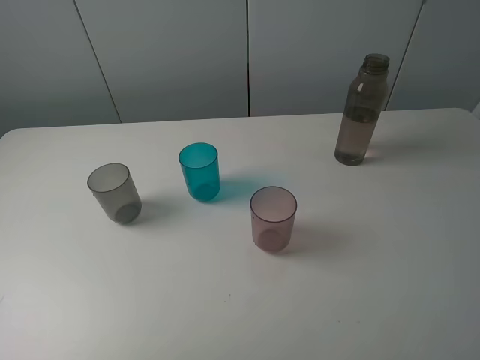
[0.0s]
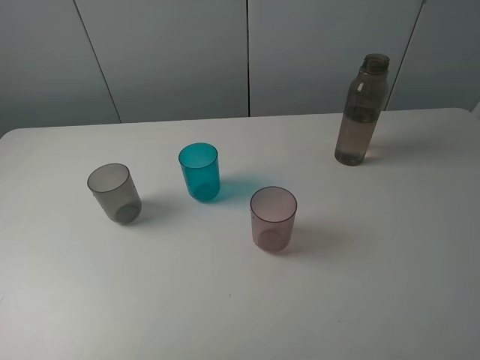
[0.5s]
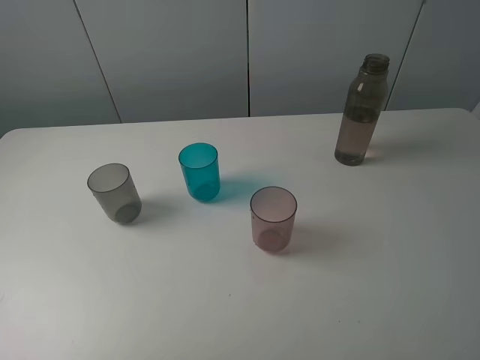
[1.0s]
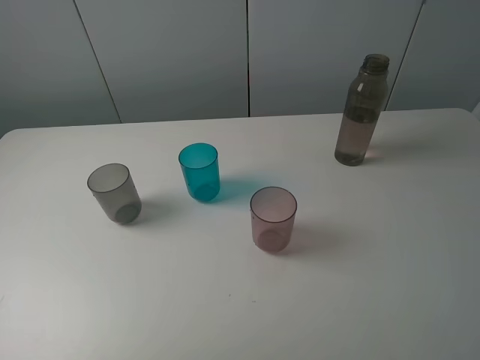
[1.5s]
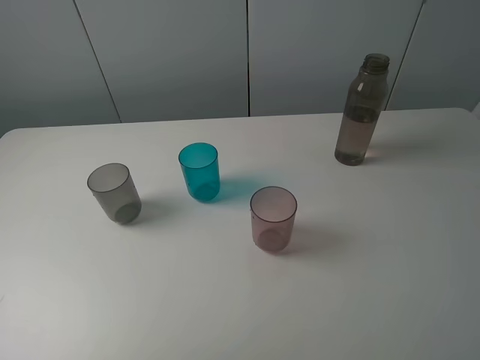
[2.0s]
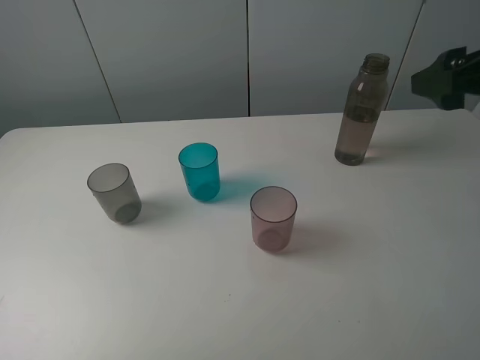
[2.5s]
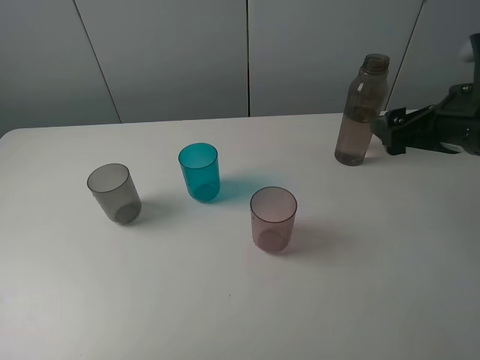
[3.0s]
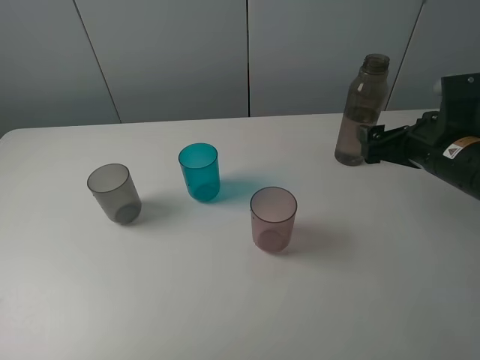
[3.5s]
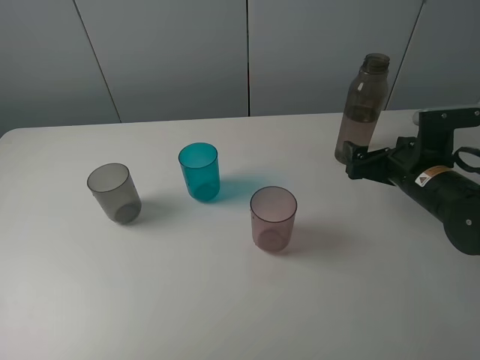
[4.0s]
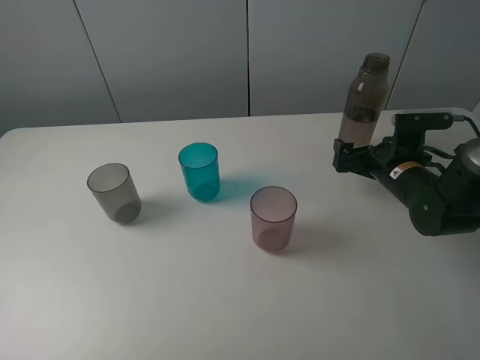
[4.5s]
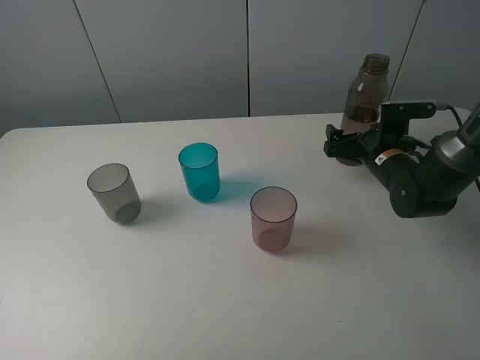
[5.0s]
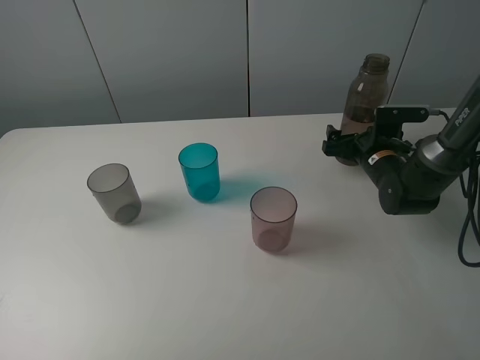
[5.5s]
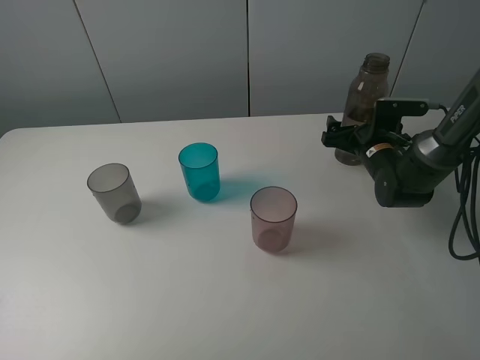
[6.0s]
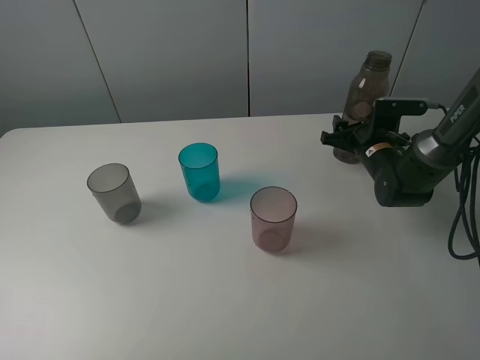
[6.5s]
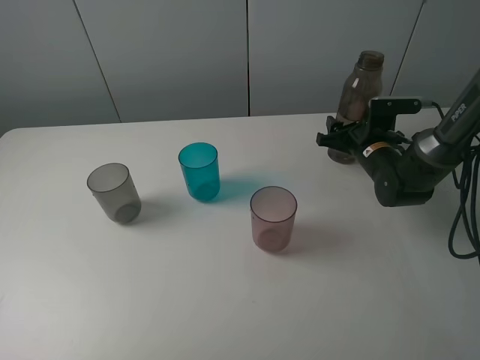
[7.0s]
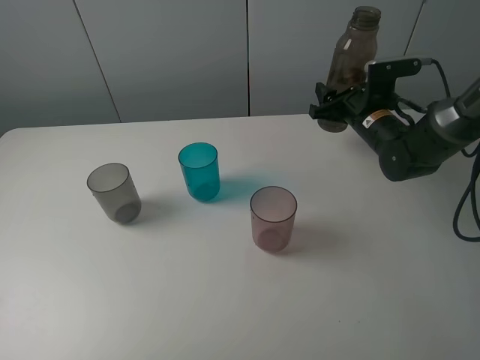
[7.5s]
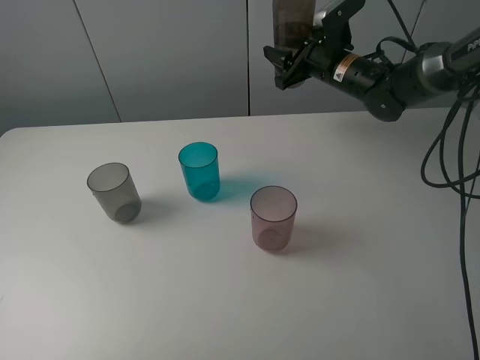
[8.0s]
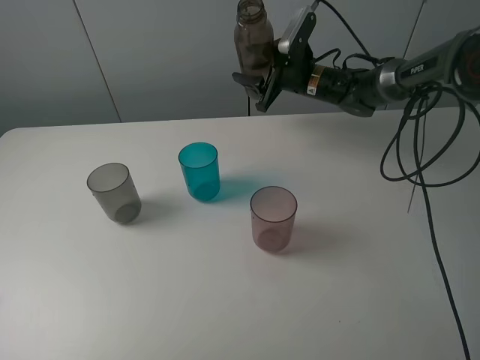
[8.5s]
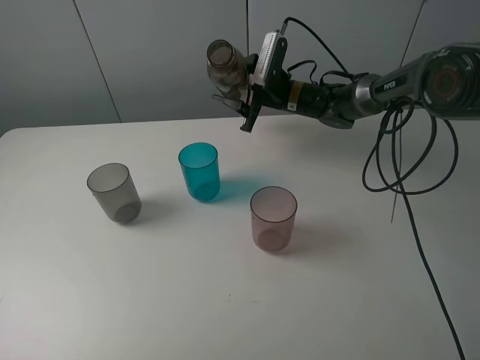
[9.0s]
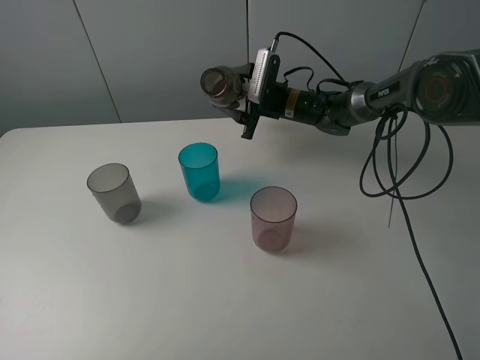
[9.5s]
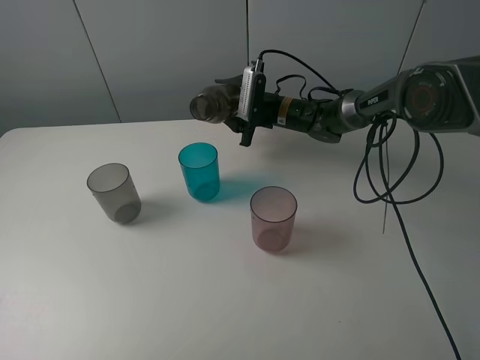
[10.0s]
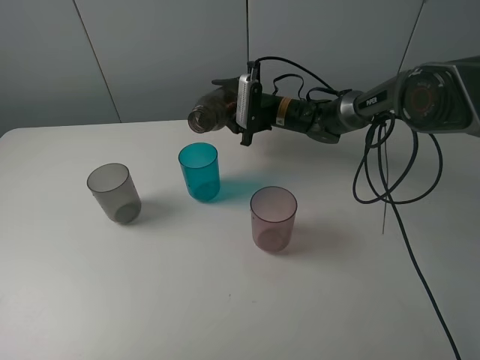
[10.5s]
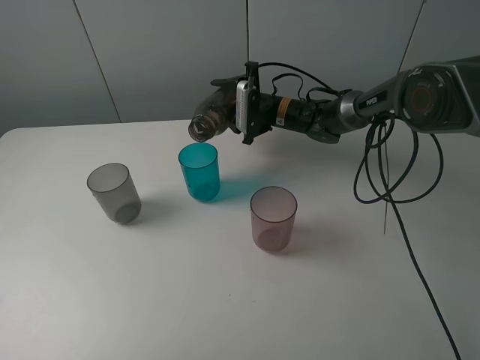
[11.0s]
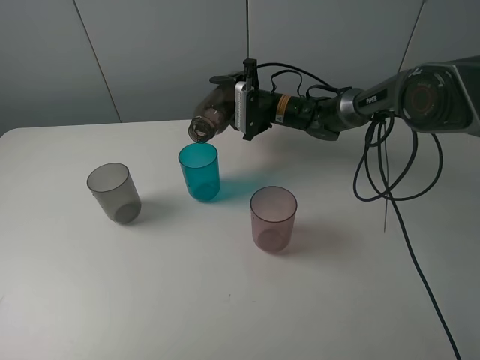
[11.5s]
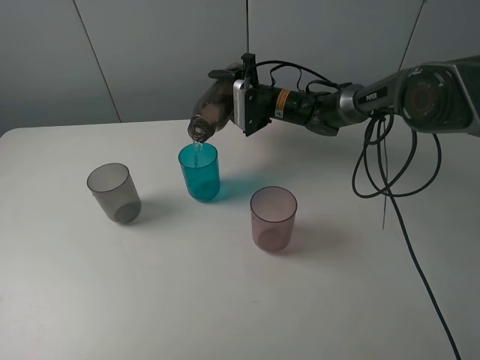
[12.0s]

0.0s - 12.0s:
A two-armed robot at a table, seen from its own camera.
Task of the whole recording: pick up the bottle filled with water and pour water into the middle cup of the three cups.
Step, 0.0s - 6.5s: Grasp the transparent bottle with the right gripper.
Step, 7.0s - 10.5s: Pour water from transparent bottle to blue cup with the right gripper.
2.0s - 4.0s: The right gripper is displaced downward and forward by approximately 30 cm.
4.0s - 6.0s: The right gripper moves forward, about 10 cm.
6.0s - 8.0s: The right gripper travels upward, forward and to the left by approximately 15 cm, and closes its fingers.
8.0s - 10.0s: The right gripper travels downward and to the left by roughly 15 cm.

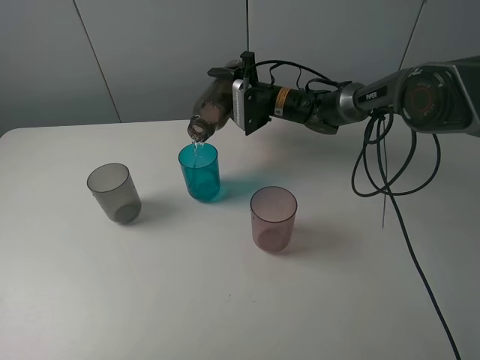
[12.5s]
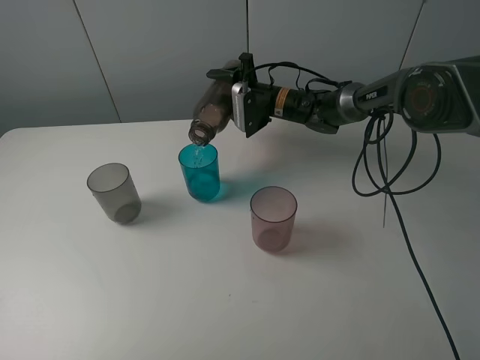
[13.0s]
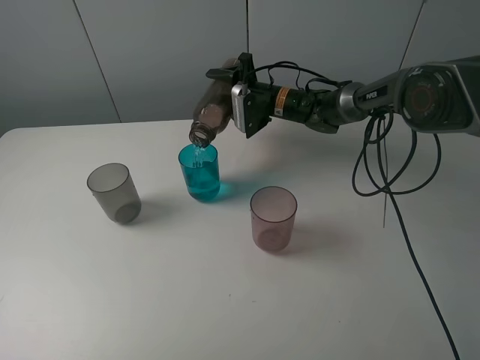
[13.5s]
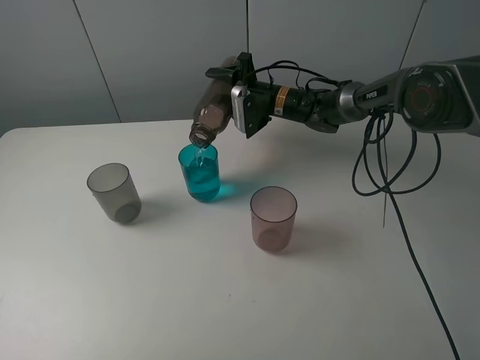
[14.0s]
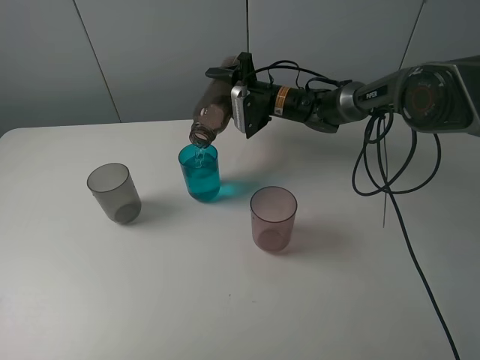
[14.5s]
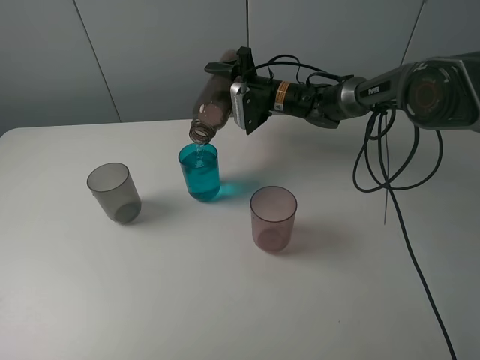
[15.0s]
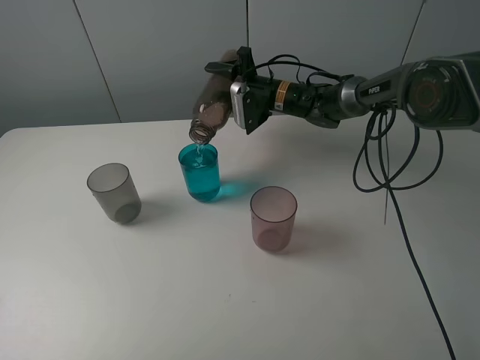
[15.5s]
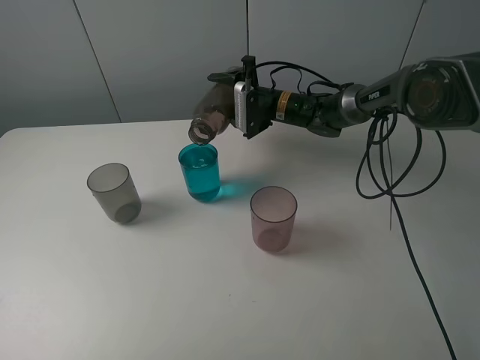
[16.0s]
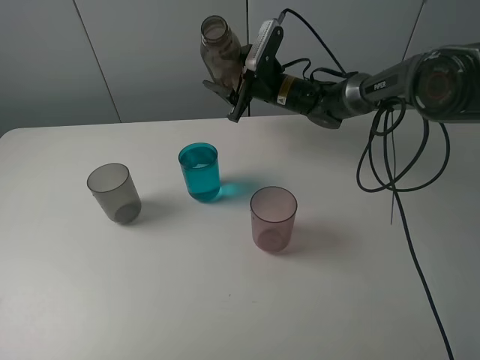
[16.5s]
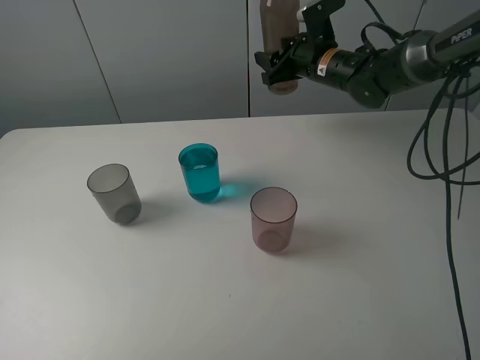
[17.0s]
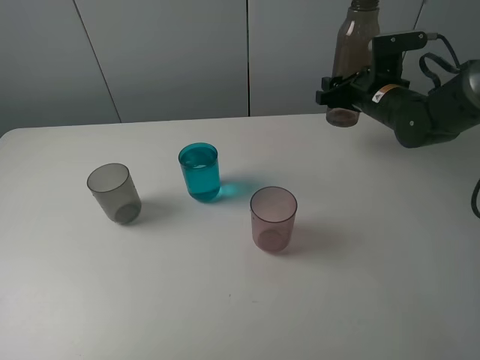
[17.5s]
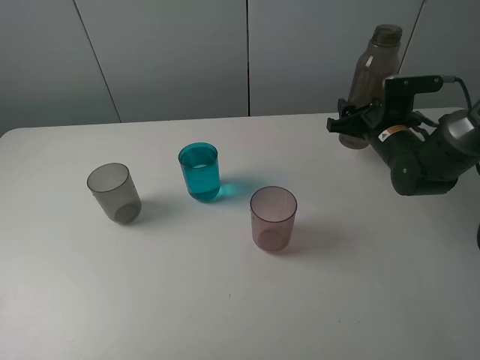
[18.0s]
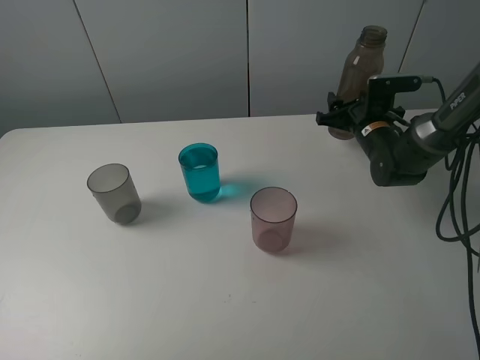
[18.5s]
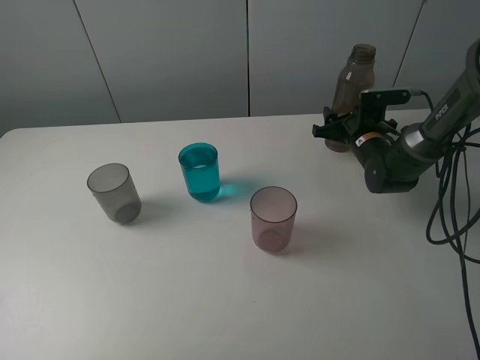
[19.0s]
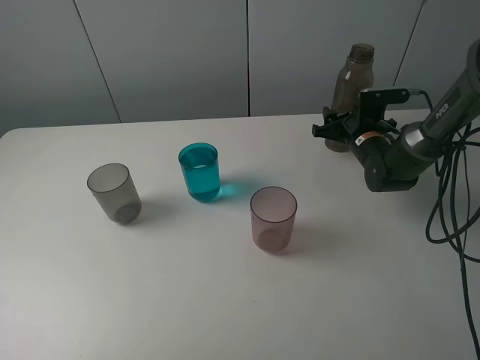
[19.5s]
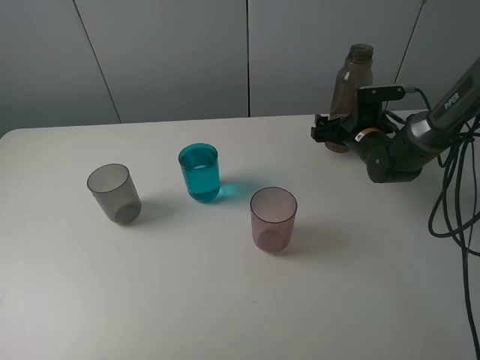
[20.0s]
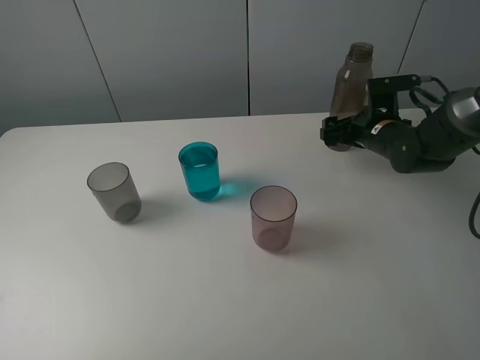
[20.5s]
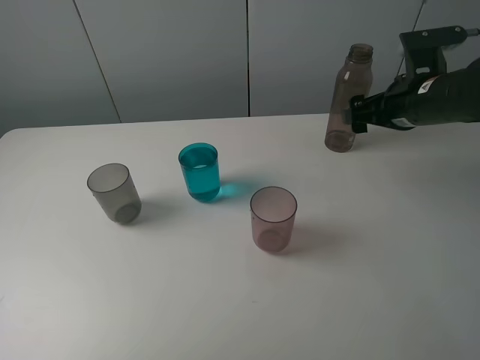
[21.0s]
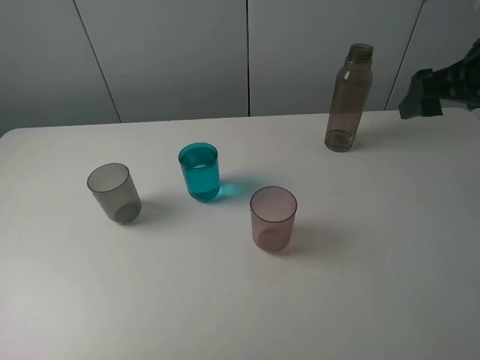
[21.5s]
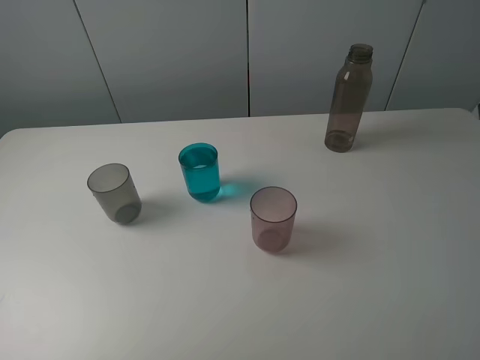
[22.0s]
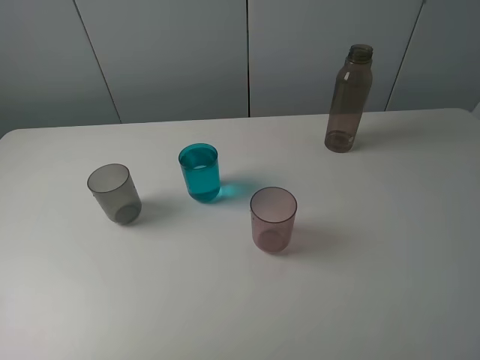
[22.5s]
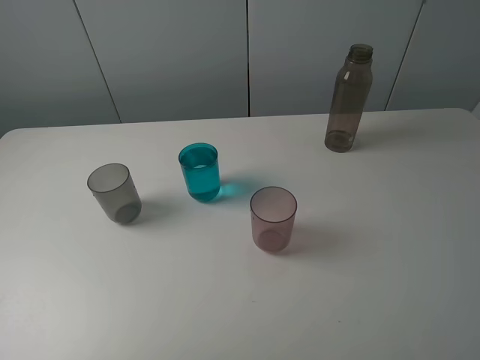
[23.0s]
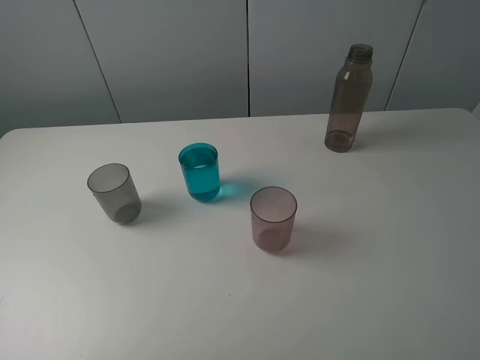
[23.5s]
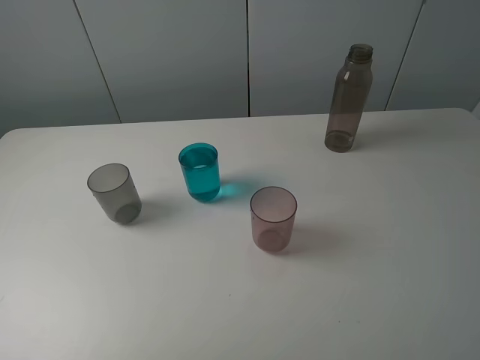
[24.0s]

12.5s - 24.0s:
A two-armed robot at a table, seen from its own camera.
Task of the whole recording: pick up the bottle filled with water and pour water into the middle cup of the three cups.
Step, 12.5s - 21.0s: Place the transparent bottle with the right gripper.
12.5s - 14.5s: There are only small adjustments of the grippers.
16.5s - 18.5s: The right gripper is displaced to the right and backward by roughly 15 cm.
18.5s - 20.0s: The right gripper opens.
20.0s - 22.0s: The right gripper shifts approximately 40 cm upward and backward.

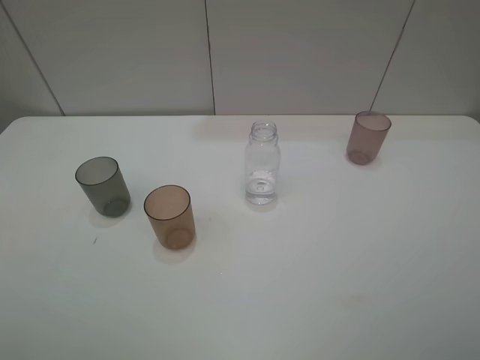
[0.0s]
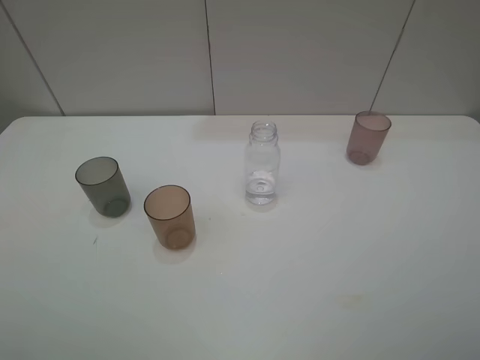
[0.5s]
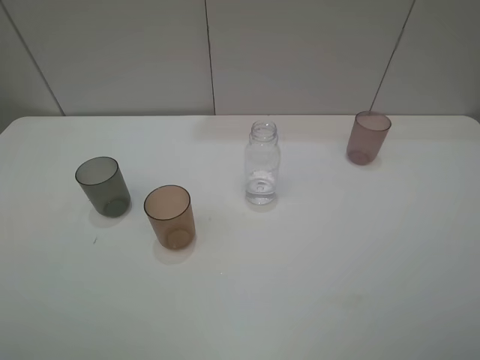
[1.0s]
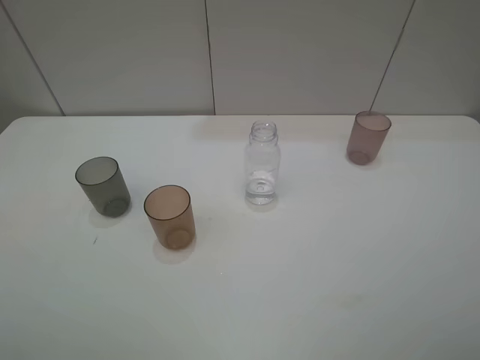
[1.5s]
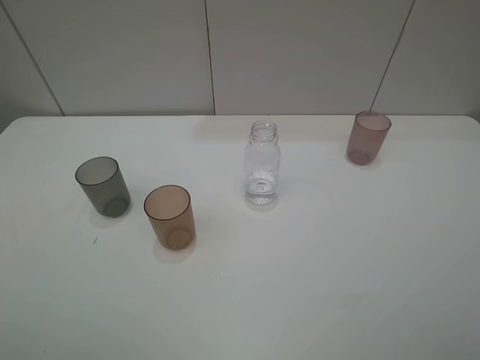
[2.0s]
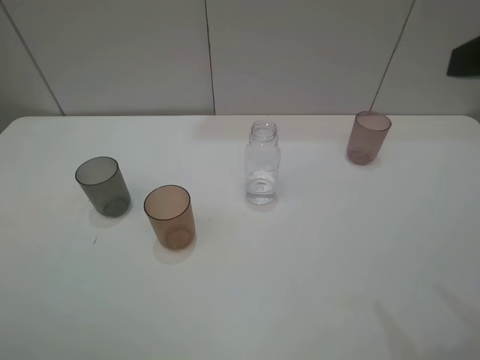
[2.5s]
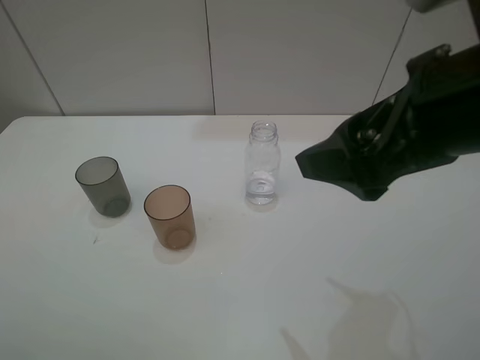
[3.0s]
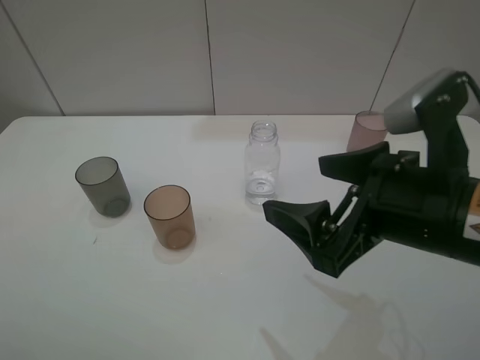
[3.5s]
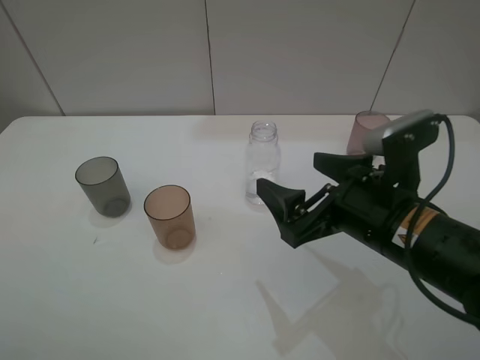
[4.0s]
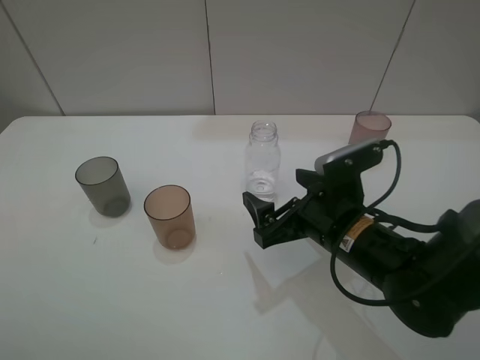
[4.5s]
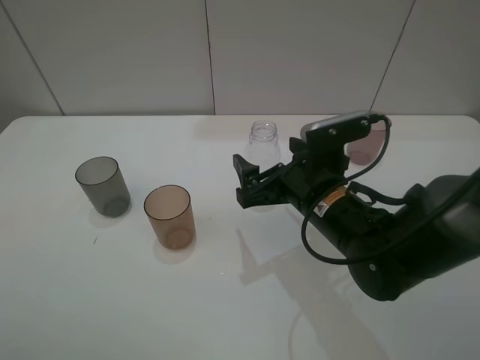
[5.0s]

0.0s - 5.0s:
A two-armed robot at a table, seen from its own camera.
Task of the whole recording: pick up the bottle filled with water and pour water into the middle cup of the three cups.
2.5s - 5.0s: The right gripper goes some 30 cm downward and to the left.
